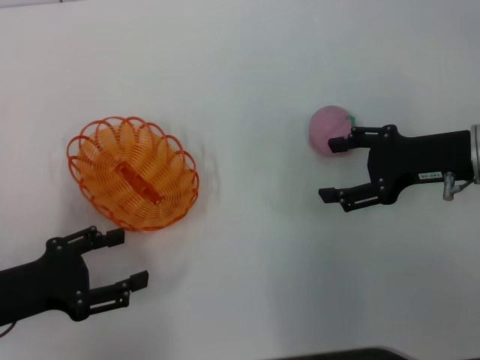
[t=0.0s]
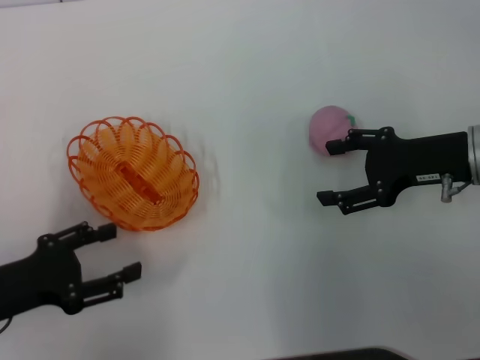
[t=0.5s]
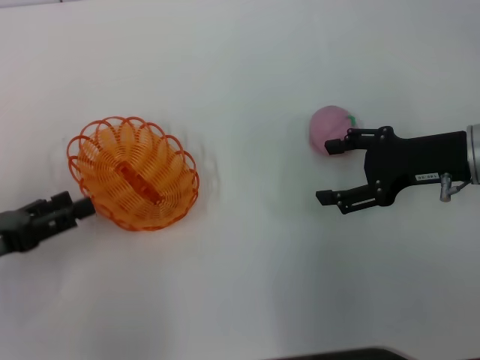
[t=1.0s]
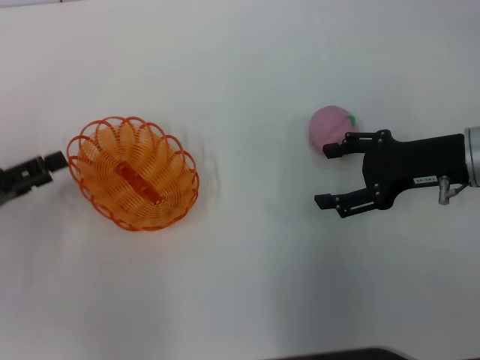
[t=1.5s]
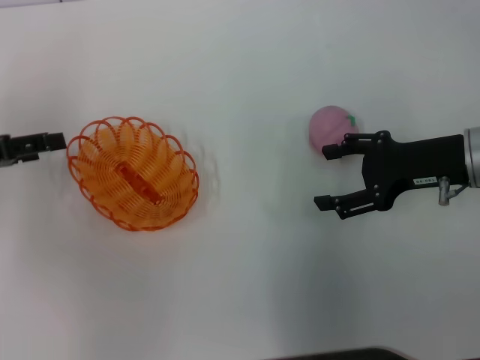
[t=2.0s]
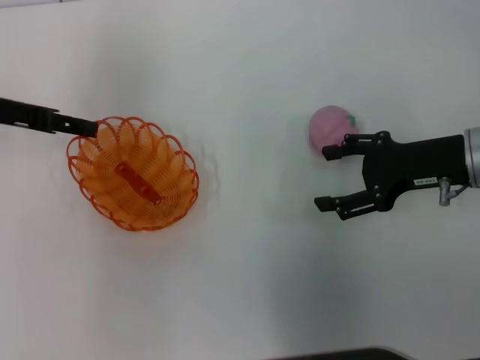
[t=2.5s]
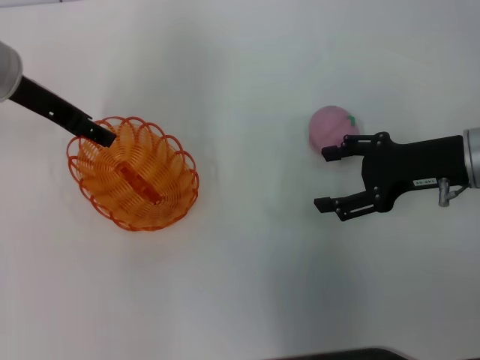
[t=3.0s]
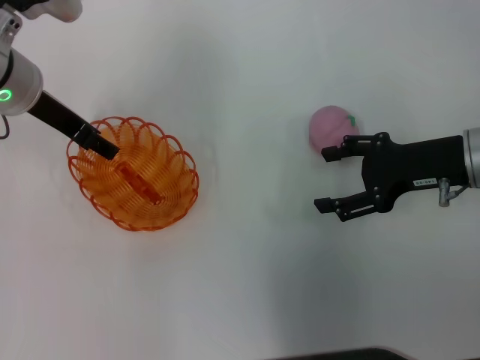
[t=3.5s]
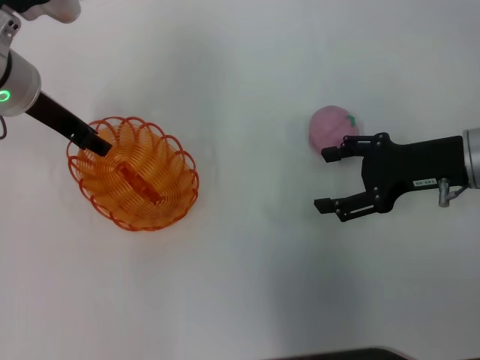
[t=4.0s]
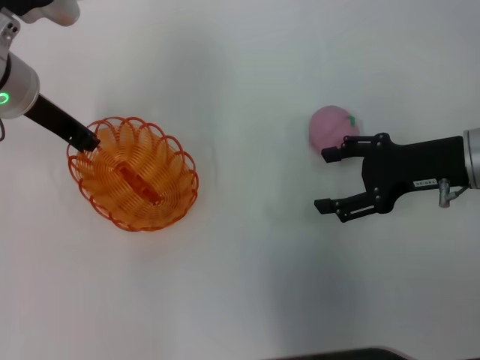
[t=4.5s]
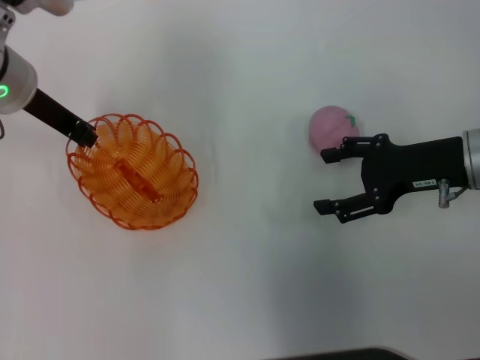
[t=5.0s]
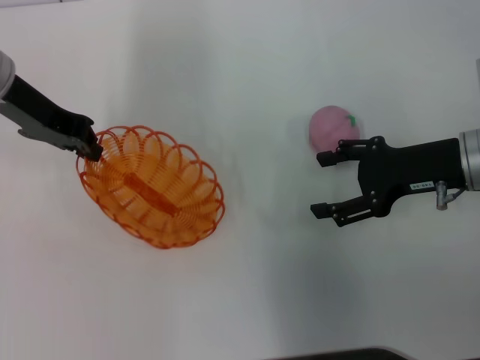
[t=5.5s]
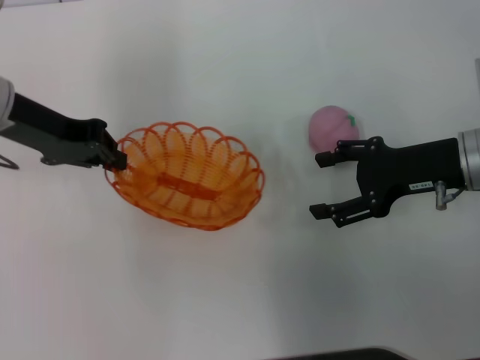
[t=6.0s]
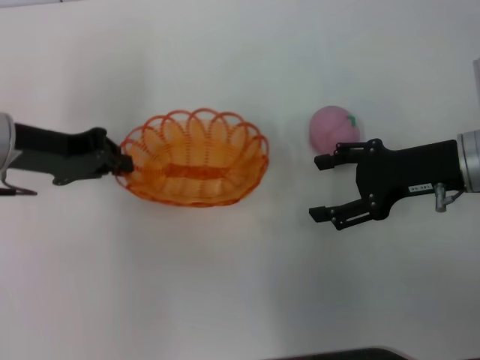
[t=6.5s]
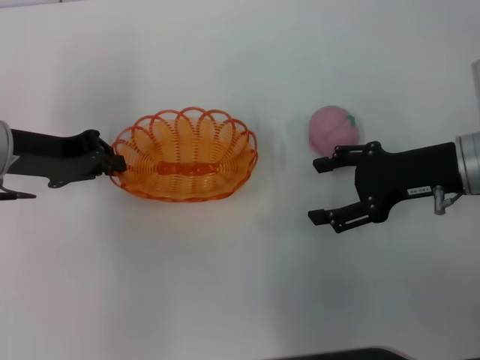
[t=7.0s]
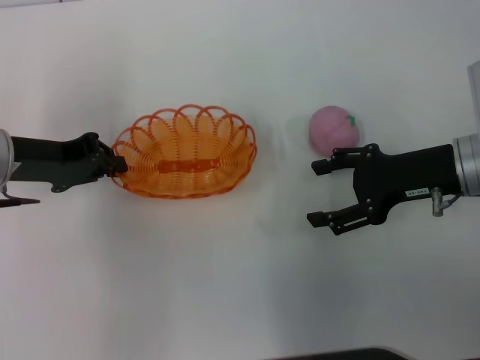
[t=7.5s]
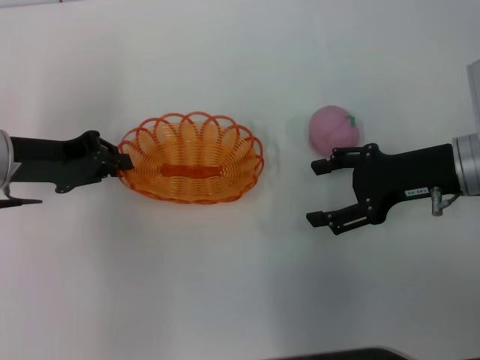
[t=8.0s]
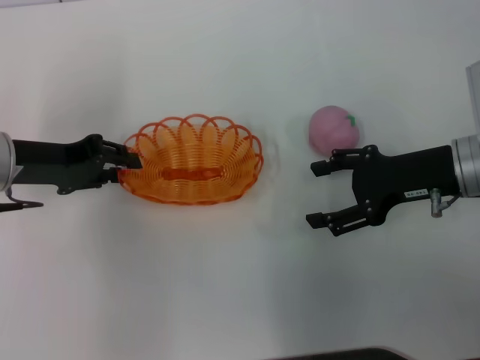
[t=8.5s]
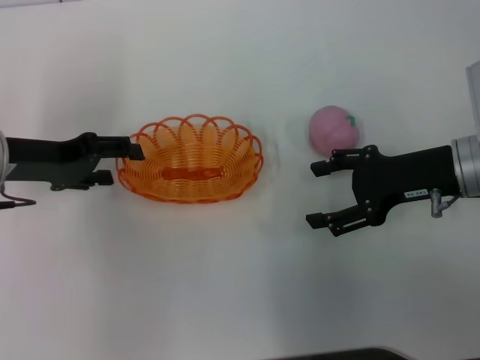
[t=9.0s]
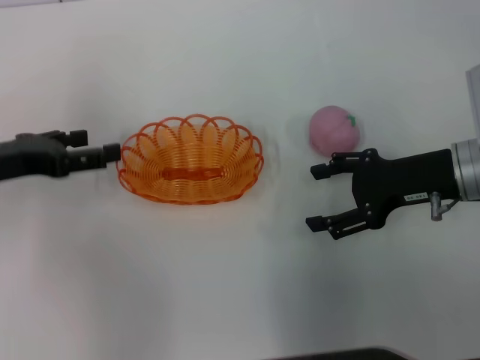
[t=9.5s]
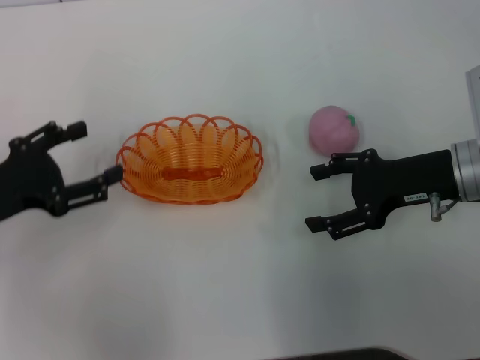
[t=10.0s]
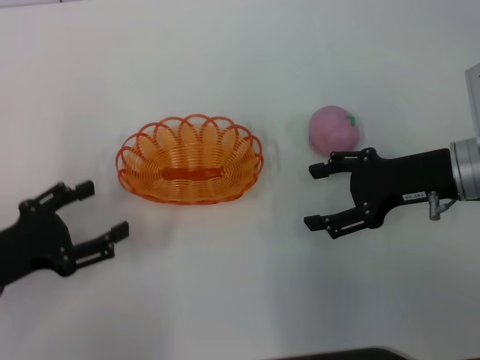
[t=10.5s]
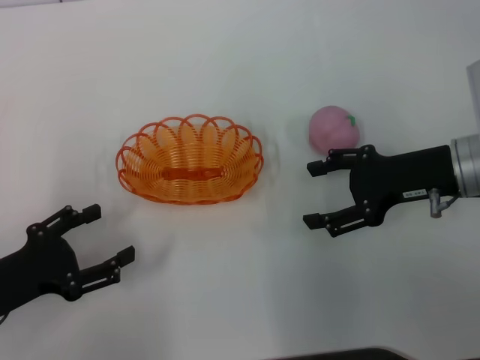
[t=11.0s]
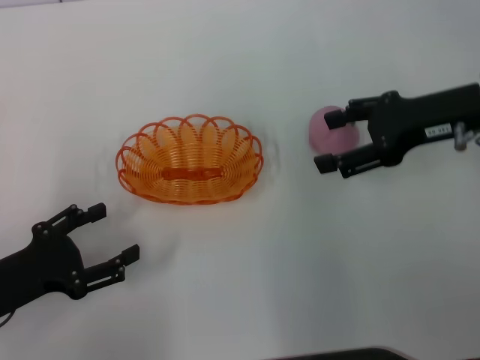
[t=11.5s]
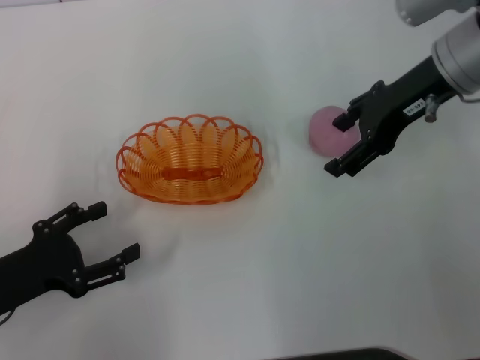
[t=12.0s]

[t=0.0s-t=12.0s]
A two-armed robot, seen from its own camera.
Step, t=0.0s to t=5.0s: Pick up the basket with the left gripper.
Step, t=5.5s to t=9.0s: Place the basket in the center of view with the left gripper.
t=0.0s to t=2.0s: The left gripper moves forward and upward, roughly 15 cm.
t=2.0s to t=4.0s: The left gripper shifts some 15 cm to the right and forward.
t=4.0s to t=6.0s: The left gripper closes its fingers.
t=6.0s to t=8.0s: The left gripper travels downward by approximately 5 cm.
t=8.0s to t=10.0s: The left gripper shifts some 5 cm backward, and opens up.
t=10.0s to t=12.0s: The left gripper goes about 5 cm backward, while the right gripper goes some 10 cm upward and forward.

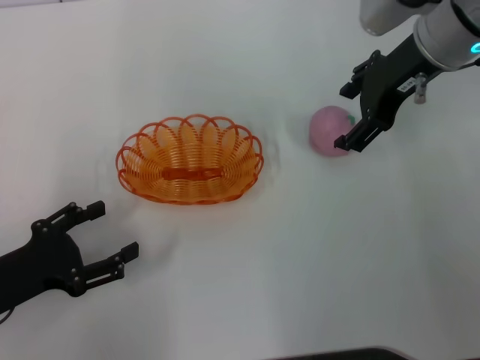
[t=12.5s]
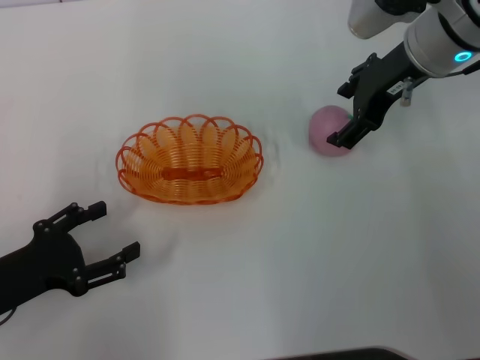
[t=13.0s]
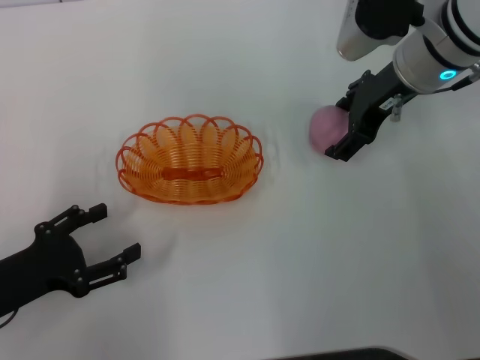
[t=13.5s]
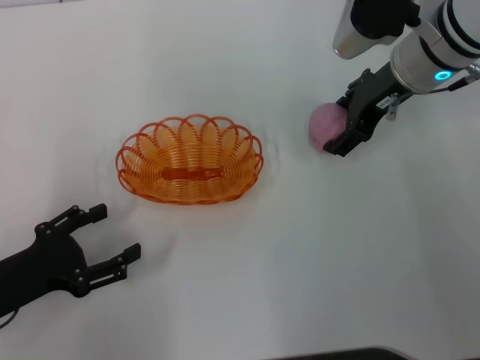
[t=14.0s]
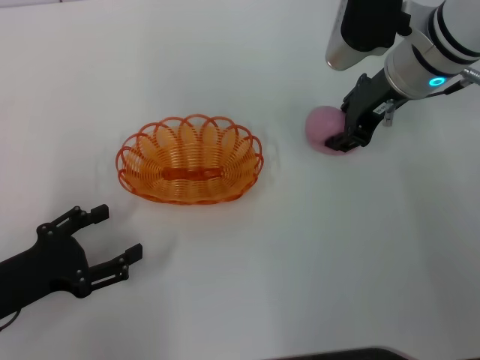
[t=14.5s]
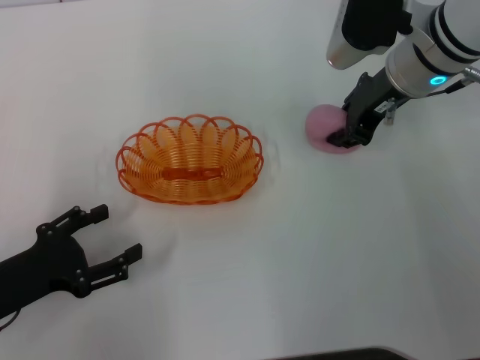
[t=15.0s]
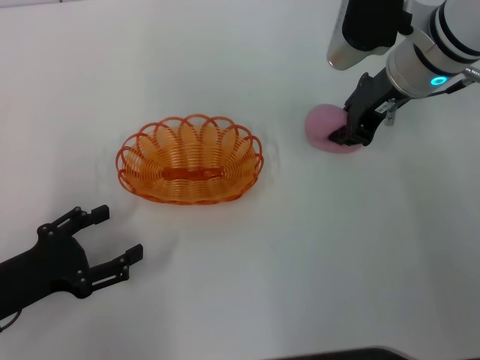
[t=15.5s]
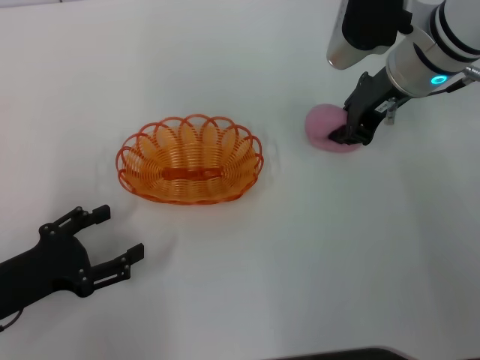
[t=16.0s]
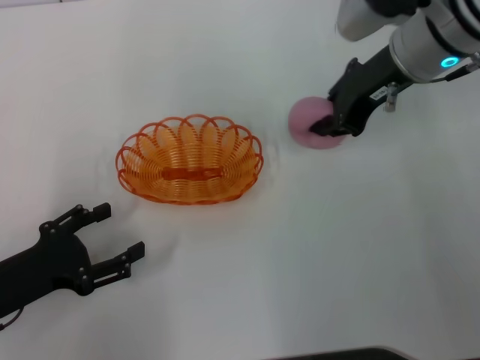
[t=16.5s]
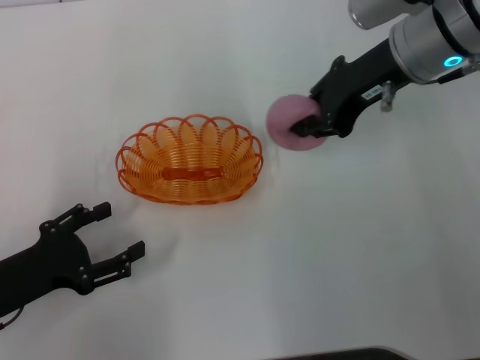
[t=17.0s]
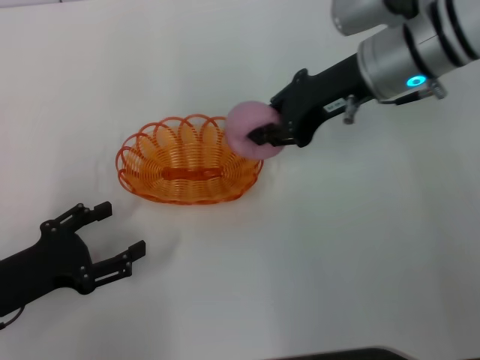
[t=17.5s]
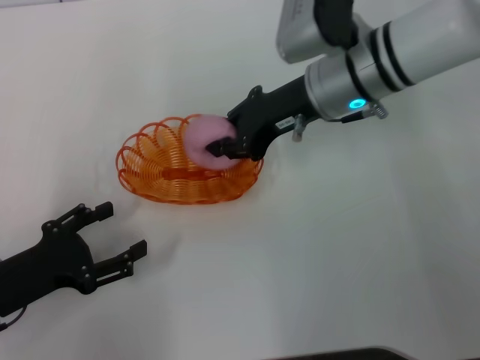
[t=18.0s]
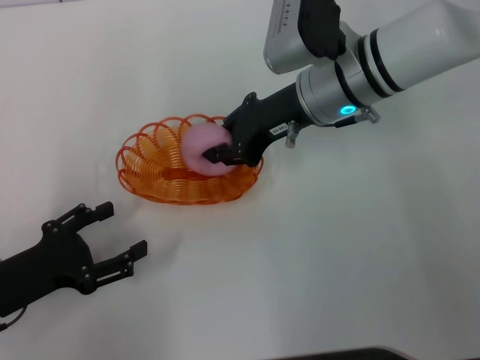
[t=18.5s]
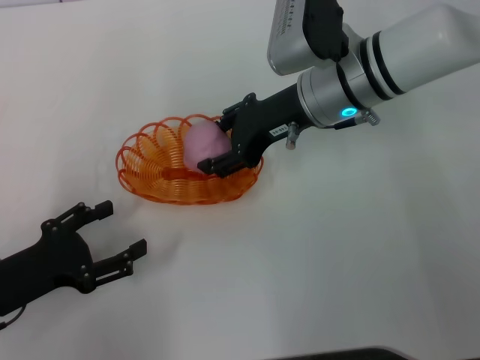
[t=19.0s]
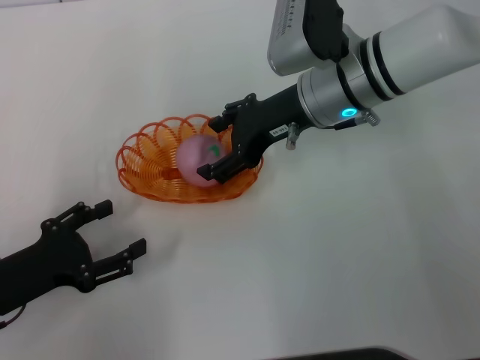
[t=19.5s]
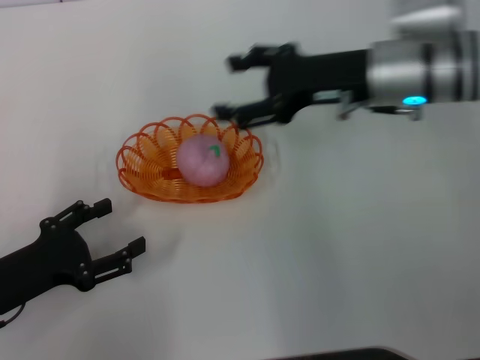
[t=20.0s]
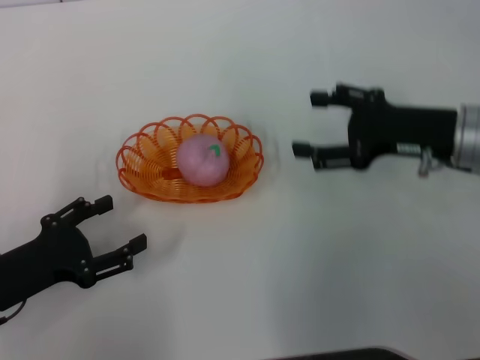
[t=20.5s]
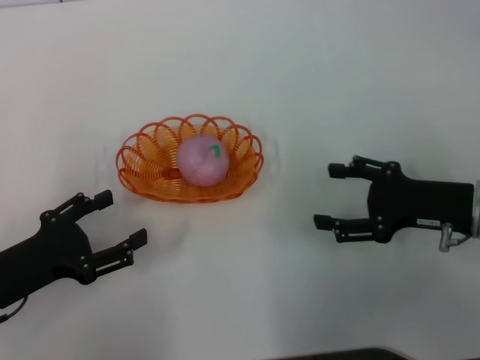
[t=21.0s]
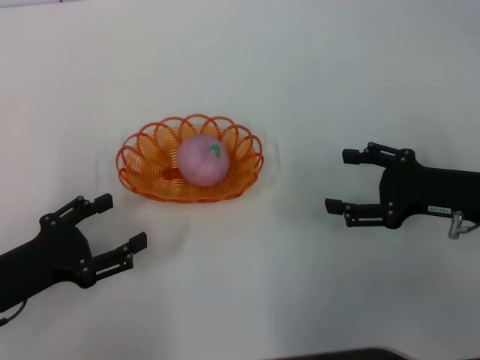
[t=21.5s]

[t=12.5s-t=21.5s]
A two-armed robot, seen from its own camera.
Step, t=12.5s to t=16.5s: Pick up the peach with the right gripper.
Step, t=17.0s to t=20.0s: Place the peach into the basket with the right gripper.
t=12.5s to t=14.5s: The right gripper goes approximately 5 cm downward.
t=14.5s to t=17.0s: The right gripper closes.
t=17.0s to t=19.5s: The right gripper is displaced downward and to the left by roughly 10 cm, and opens its fingers.
t=19.5s to t=21.5s: The right gripper moves to the right and backward, roughly 20 cm.

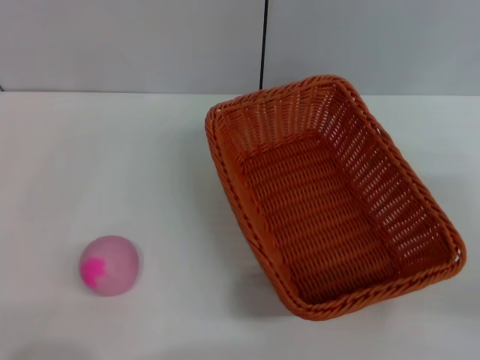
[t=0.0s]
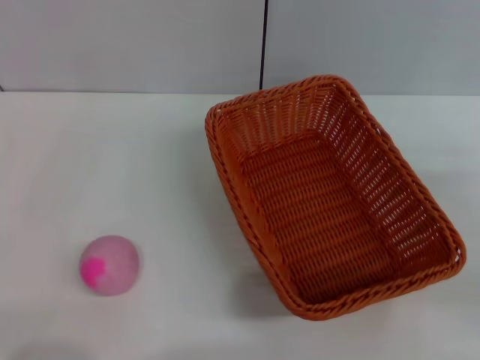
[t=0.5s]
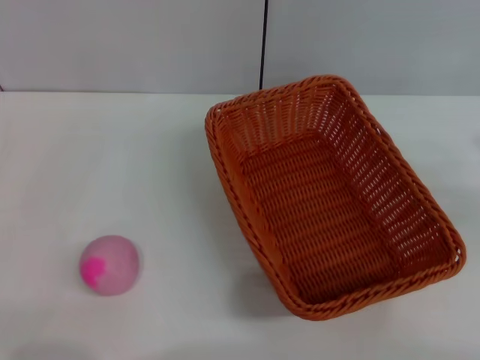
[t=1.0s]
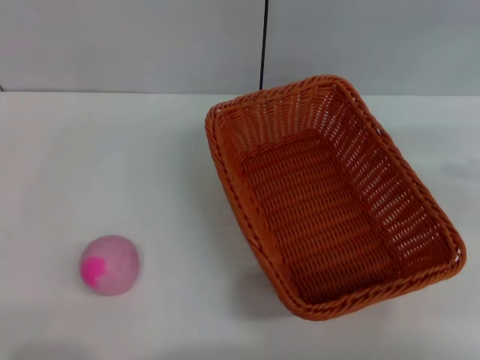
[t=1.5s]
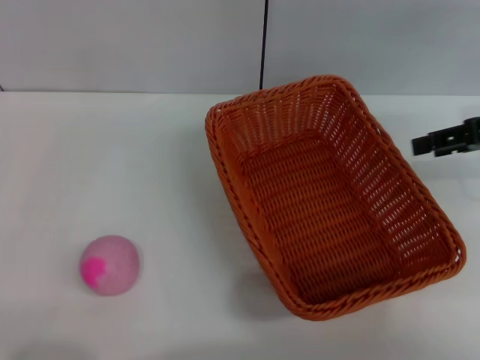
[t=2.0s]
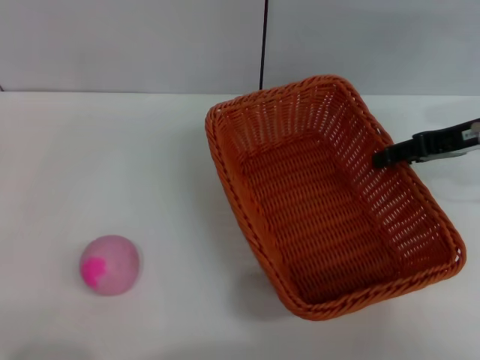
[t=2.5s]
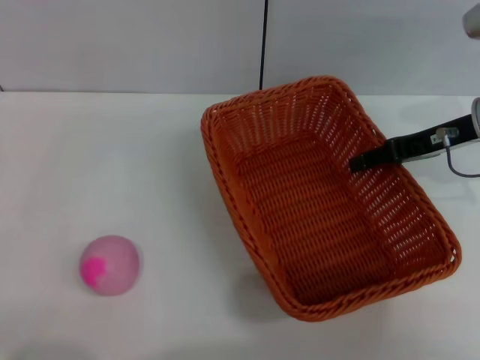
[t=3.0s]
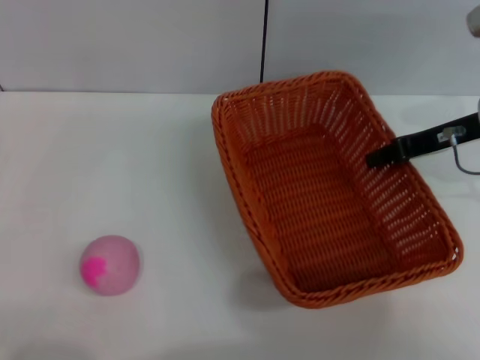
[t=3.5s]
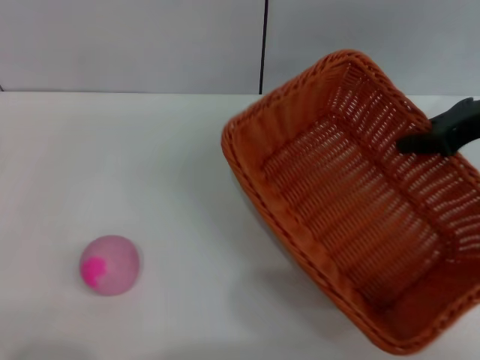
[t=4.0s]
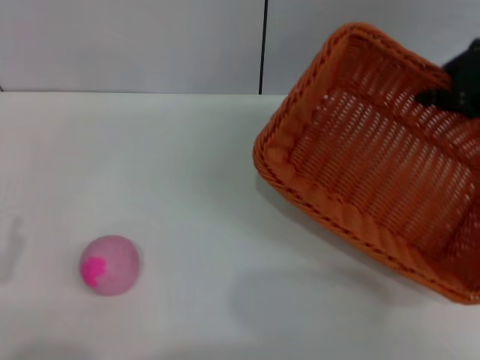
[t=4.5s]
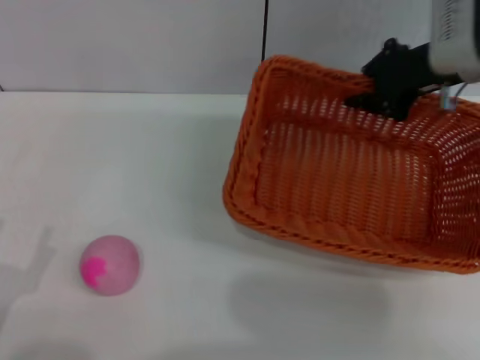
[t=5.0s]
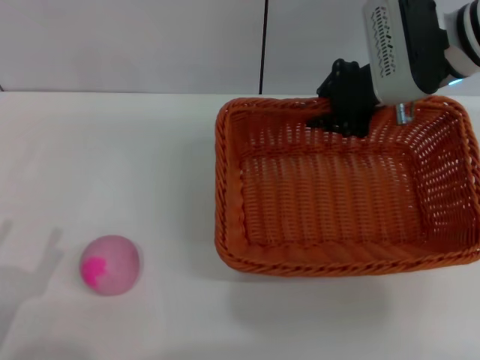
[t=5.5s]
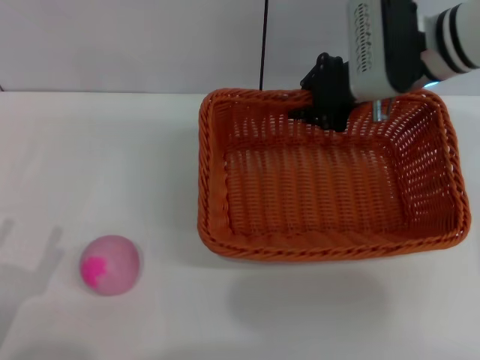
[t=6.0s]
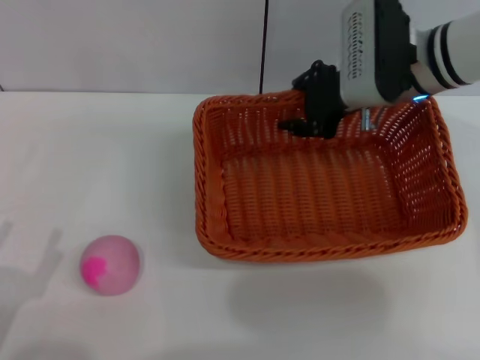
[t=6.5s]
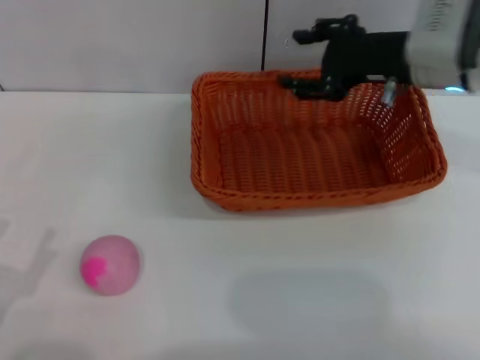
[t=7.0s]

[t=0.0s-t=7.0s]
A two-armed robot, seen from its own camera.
Step, t=0.0s to t=3.5s: Pick up the light basket with the right gripper.
Step, t=4.0s to t=7.0s: Place the light basket in the center of view with the right gripper.
t=0.0s to t=2.0s: The right gripper moves forward and upward, about 15 cm.
t=2.0s to t=3.5s: The right gripper heads to the left, covering approximately 5 cm, and closes.
t=3.5s to t=5.0s: The right gripper shifts by about 5 cm.
t=5.0s to t=7.0s: The right gripper opens.
